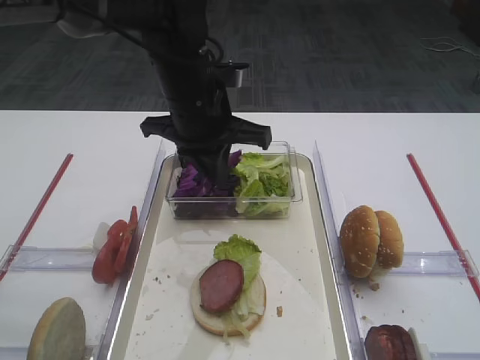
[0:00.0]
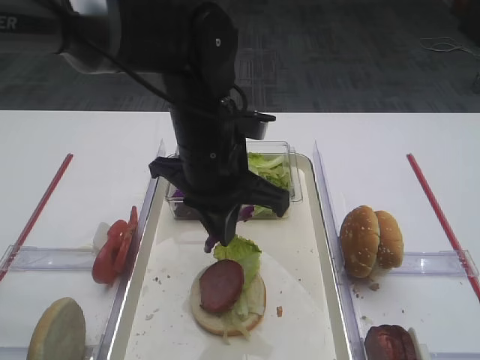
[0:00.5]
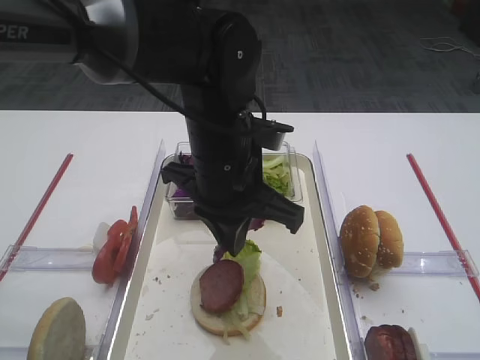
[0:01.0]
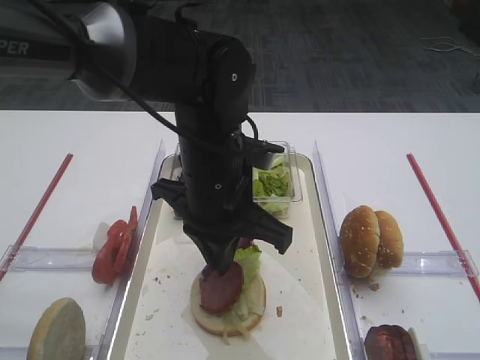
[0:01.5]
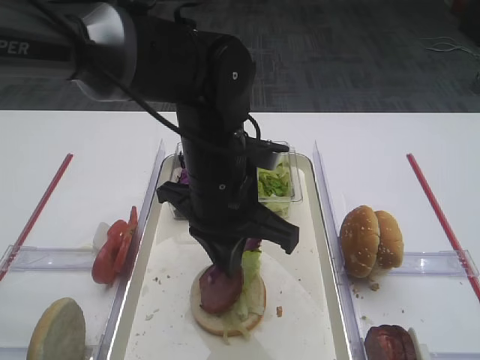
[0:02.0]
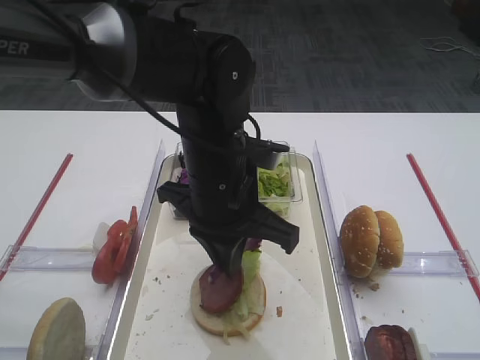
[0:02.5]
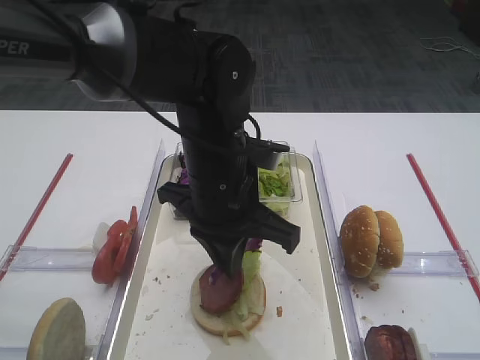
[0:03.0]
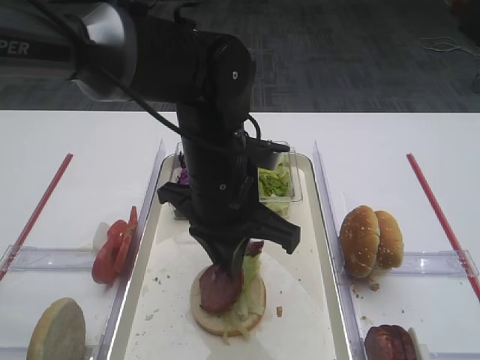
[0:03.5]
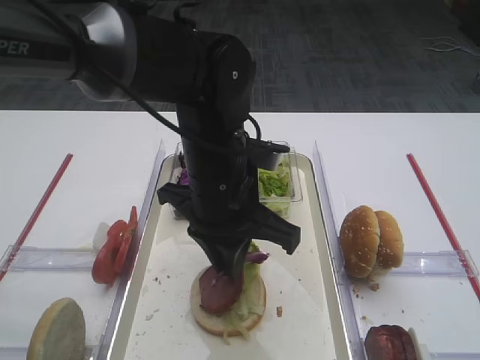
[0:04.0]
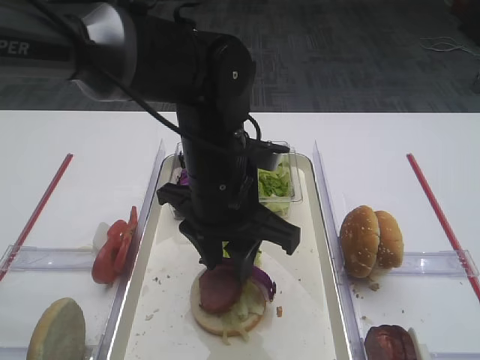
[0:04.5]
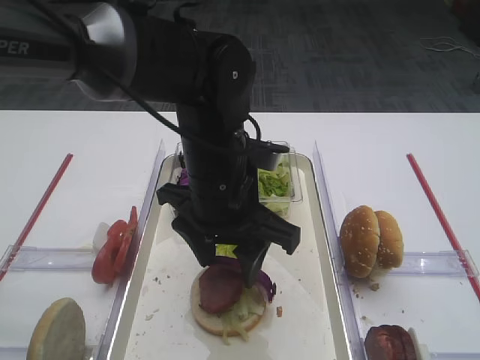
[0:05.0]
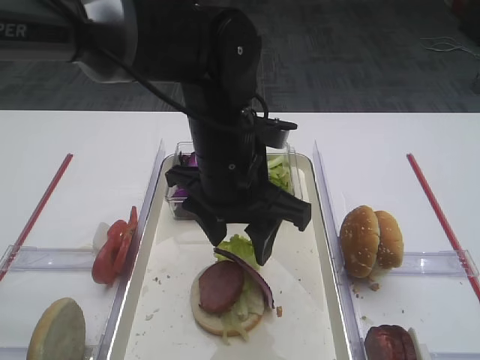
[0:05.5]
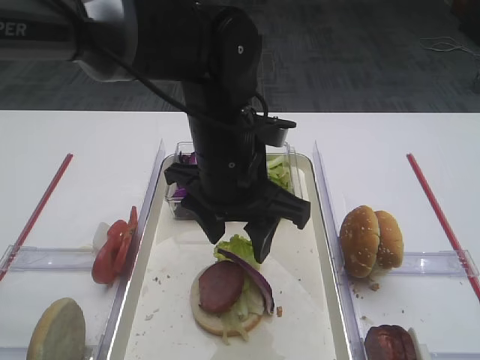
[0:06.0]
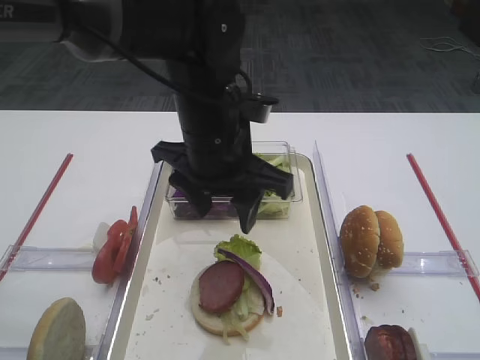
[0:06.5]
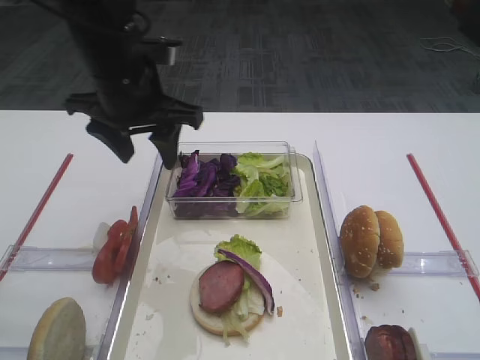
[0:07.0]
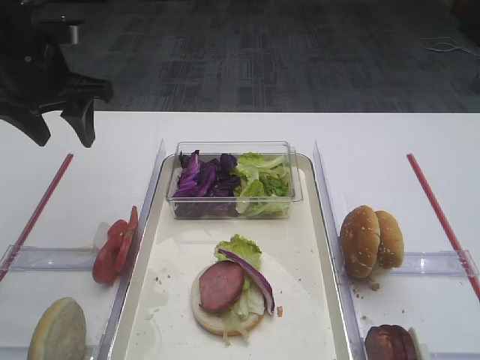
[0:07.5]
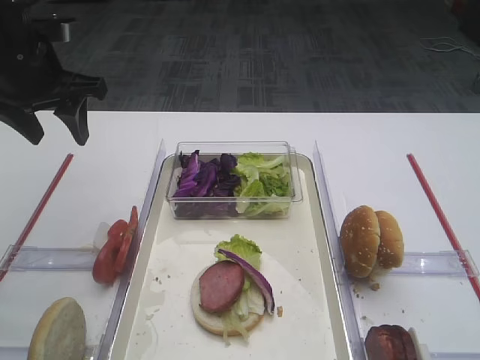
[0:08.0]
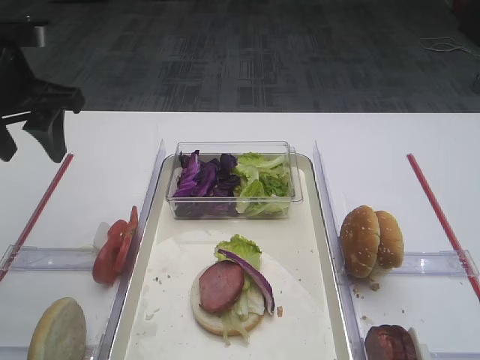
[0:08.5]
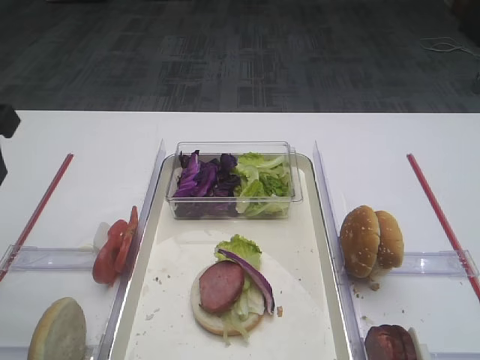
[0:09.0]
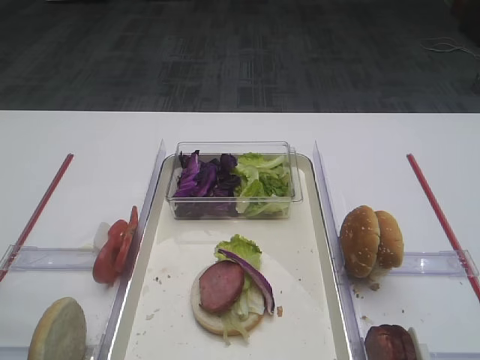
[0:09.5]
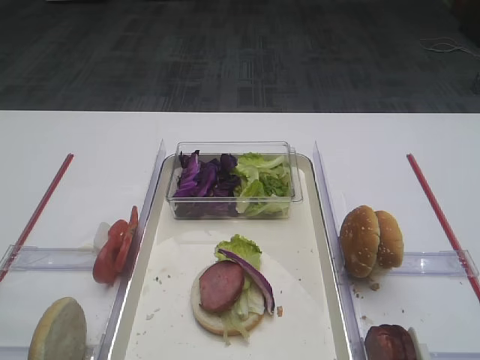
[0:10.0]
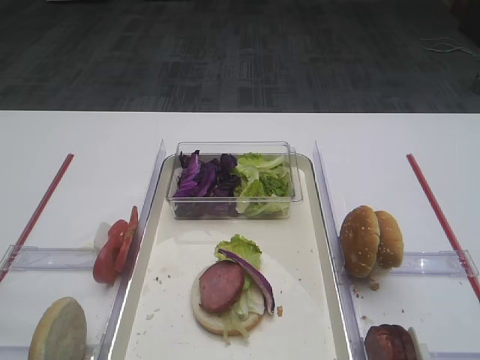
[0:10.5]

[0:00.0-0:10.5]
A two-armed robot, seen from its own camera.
Step, 0:00.0 to 0:05.5: Place the purple cabbage on the cutlet with the left gripper.
0:00.0 to 0:02.0: The left gripper shifts about 10 cm backward.
0:02.0 to 0:04.0: Neither gripper changes place.
0:04.0 to 0:06.5: The left gripper opens up.
0:06.5 to 0:08.5: The left gripper goes approximately 20 cm to the left.
0:08.5 to 0:10.5: The left gripper shifts some 35 cm backward.

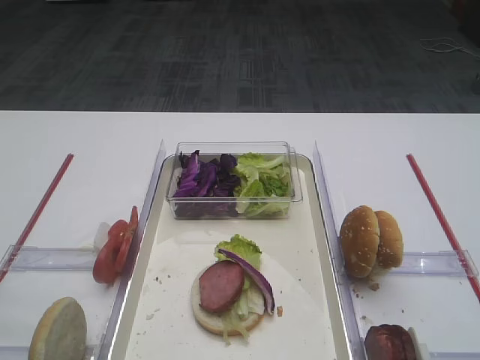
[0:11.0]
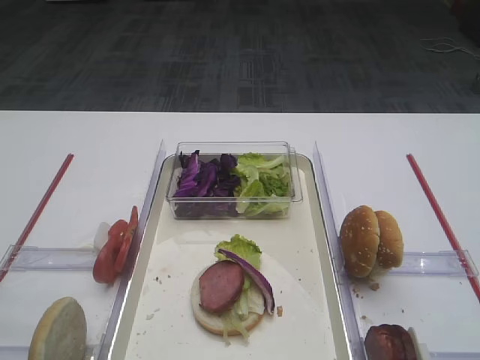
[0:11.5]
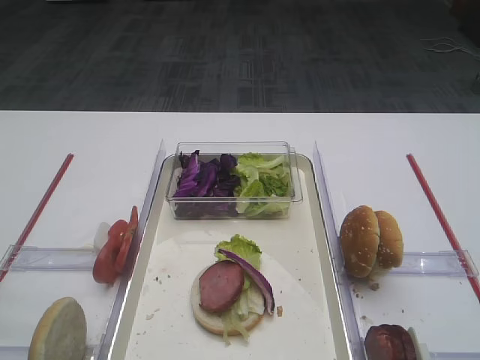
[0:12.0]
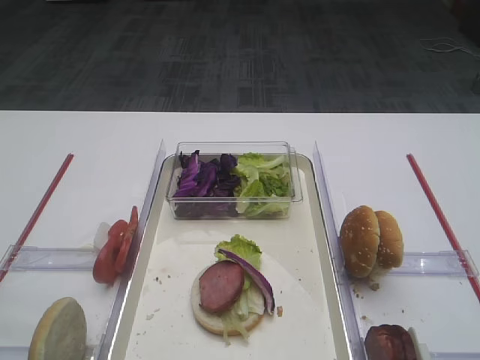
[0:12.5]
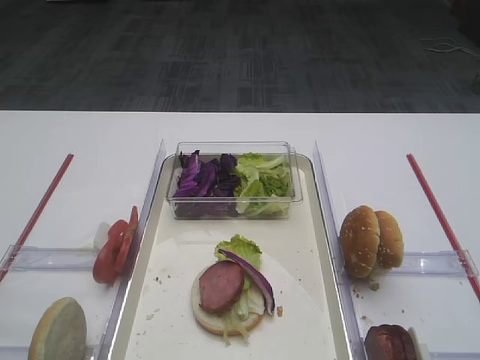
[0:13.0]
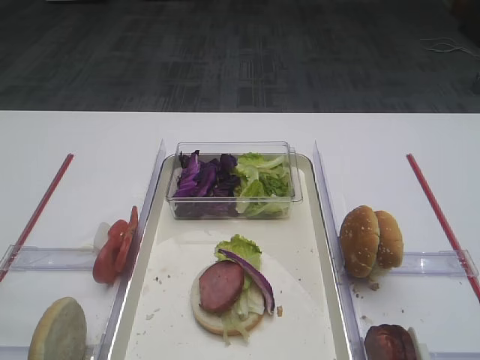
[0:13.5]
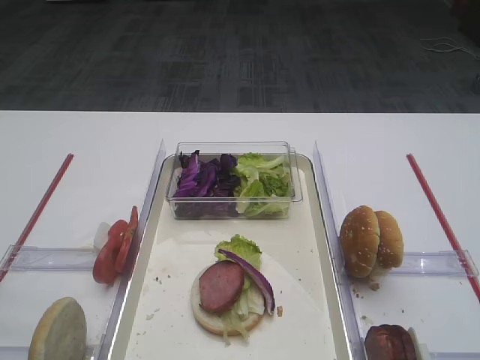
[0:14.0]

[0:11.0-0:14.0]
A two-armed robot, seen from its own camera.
0:11.0 to 0:14.0: Neither gripper changes place.

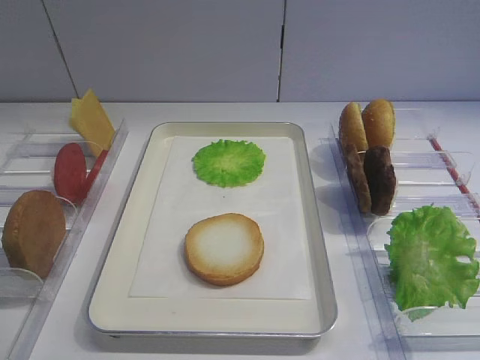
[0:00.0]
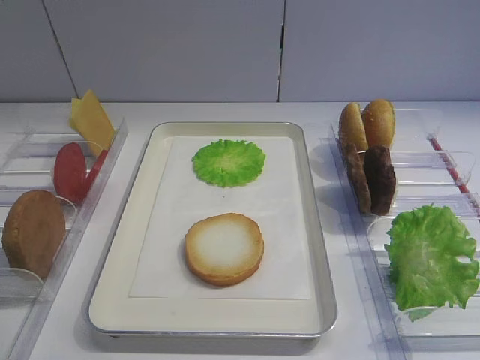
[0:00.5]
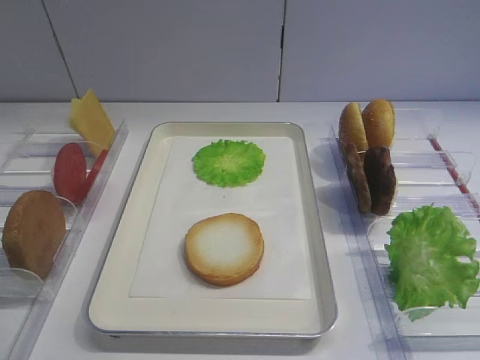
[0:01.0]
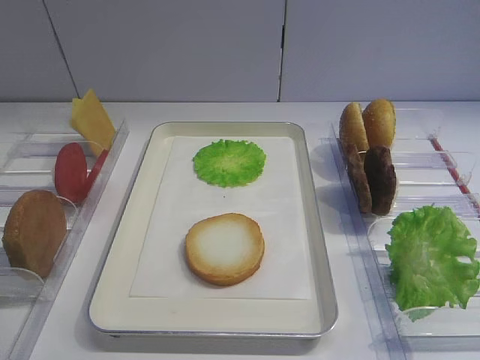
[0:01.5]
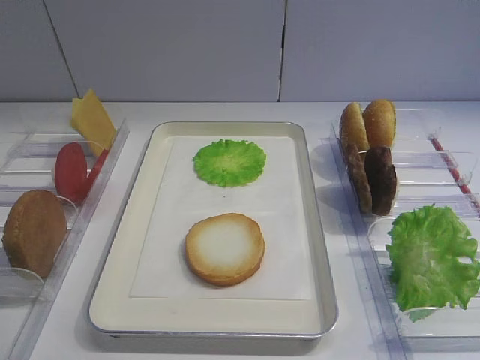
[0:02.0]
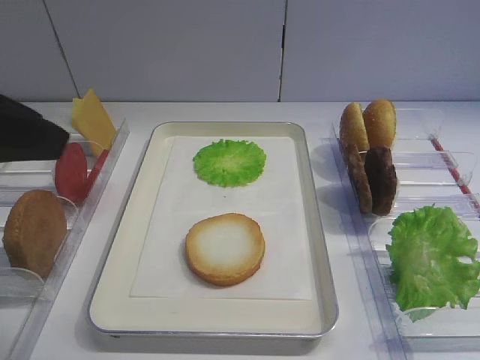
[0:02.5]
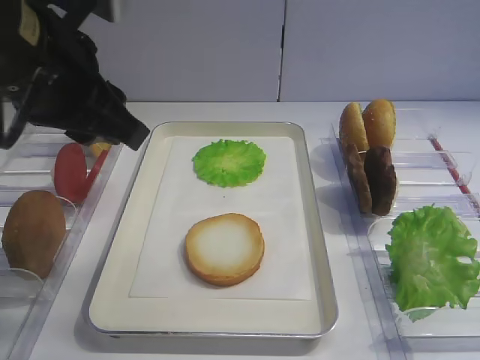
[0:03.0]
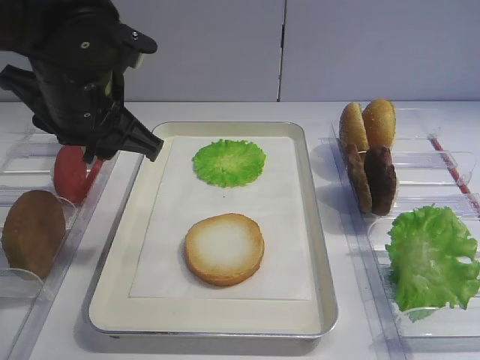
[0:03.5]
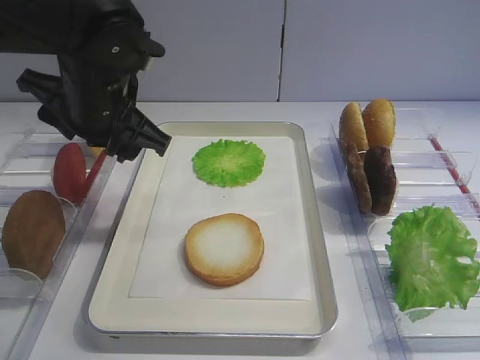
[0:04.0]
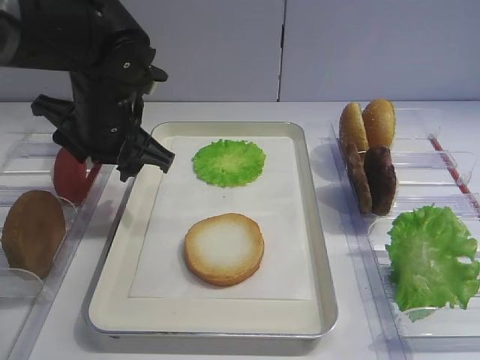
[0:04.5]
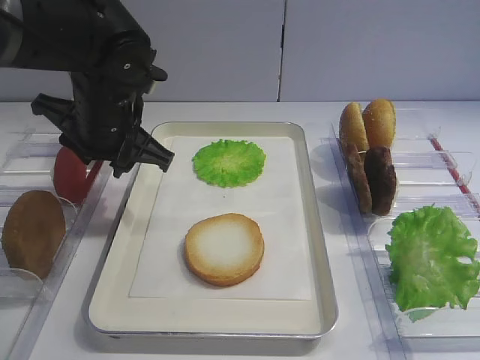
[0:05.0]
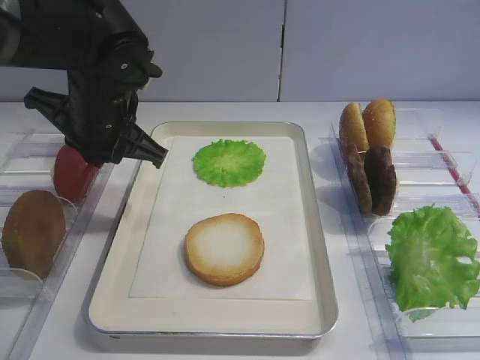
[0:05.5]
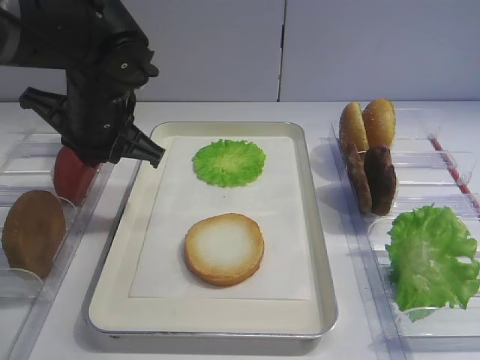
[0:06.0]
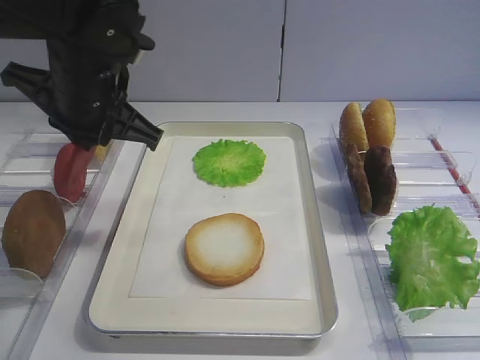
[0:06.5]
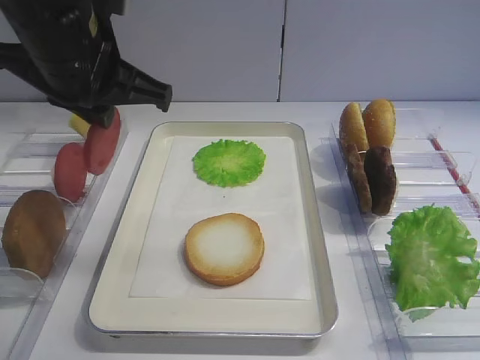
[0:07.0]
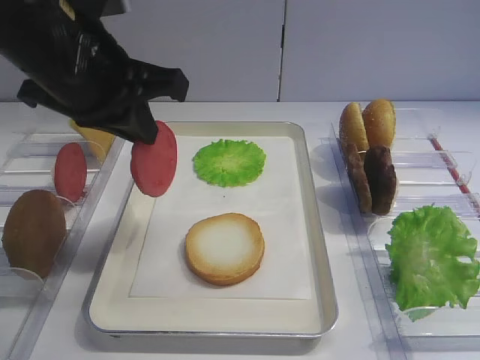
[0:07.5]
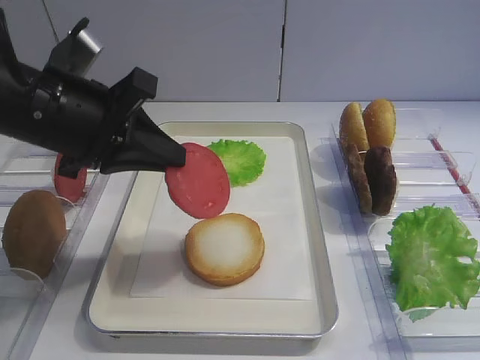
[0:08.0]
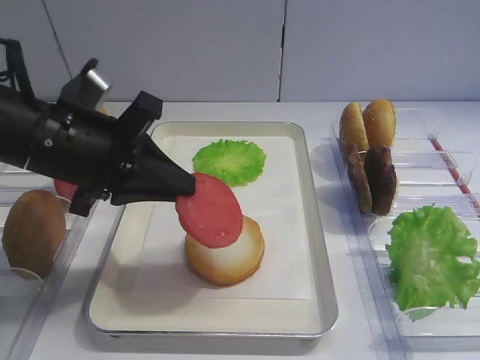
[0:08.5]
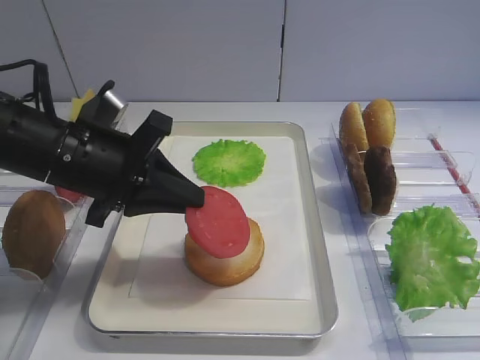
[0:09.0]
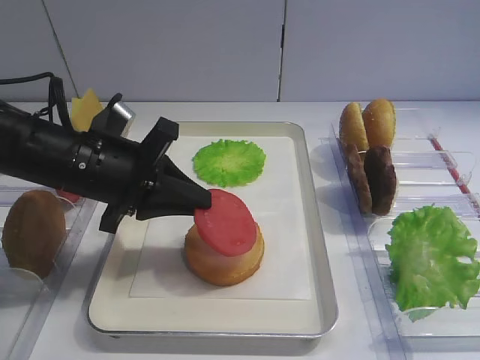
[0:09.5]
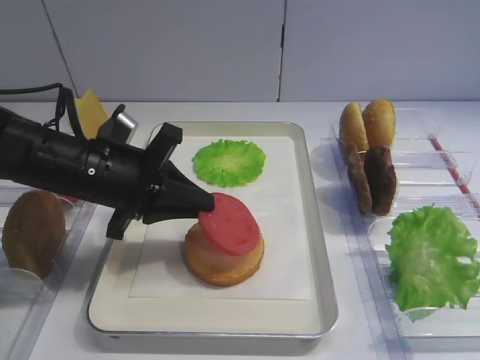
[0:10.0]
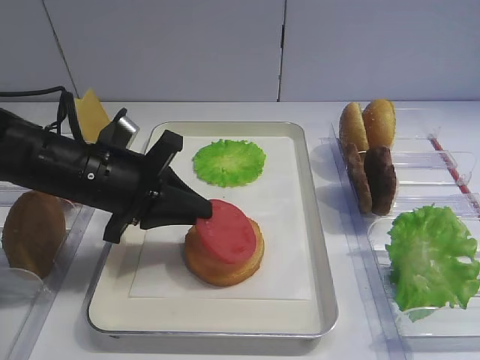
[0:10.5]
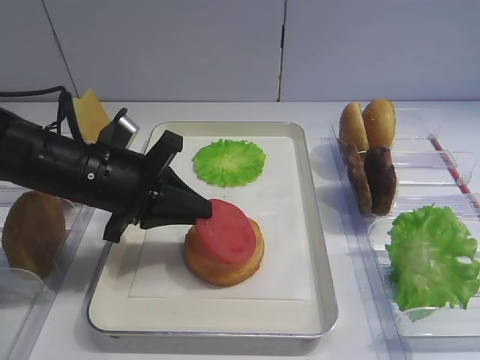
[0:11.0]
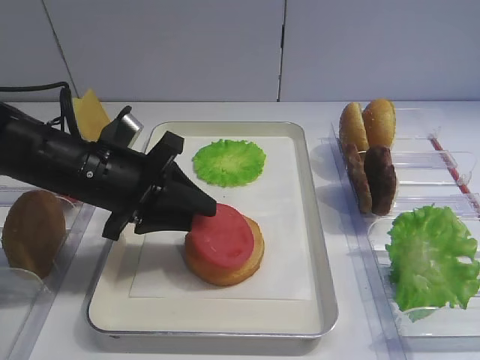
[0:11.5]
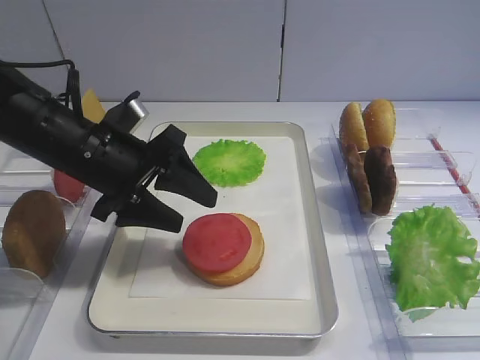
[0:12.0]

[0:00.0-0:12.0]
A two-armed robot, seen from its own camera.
Step, 0:00.0 to 0:06.5: Pick up the tomato slice with the left gripper.
0:02.0 to 0:04.0: The left gripper is displaced forward and to the right by approximately 25 cm, and opens up.
0:04.0 to 0:06.0: The left gripper closes up.
0:06.0 to 0:08.0: The left gripper goes approximately 10 cm backward.
0:08.0 to 0:10.0: The left gripper travels downward by some 10 cm.
0:10.0 to 0:12.0: The left gripper opens its fingers.
